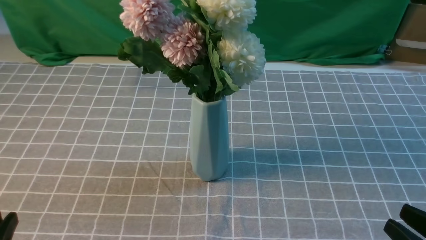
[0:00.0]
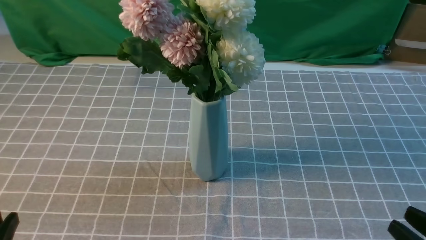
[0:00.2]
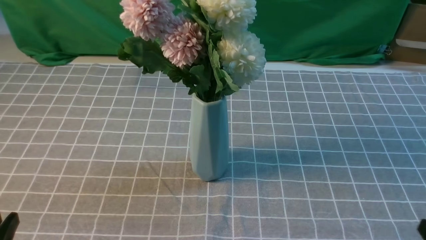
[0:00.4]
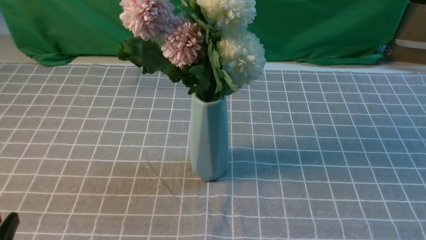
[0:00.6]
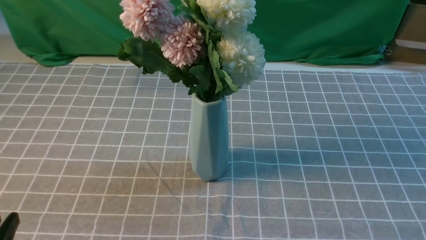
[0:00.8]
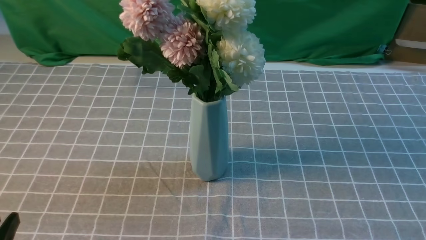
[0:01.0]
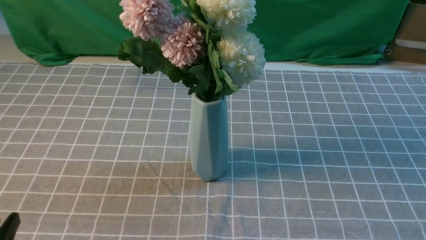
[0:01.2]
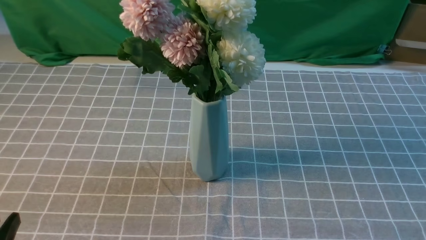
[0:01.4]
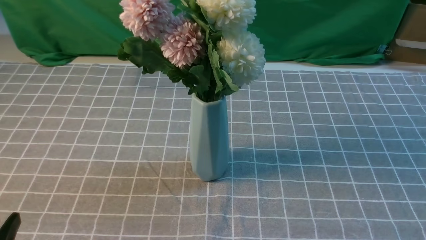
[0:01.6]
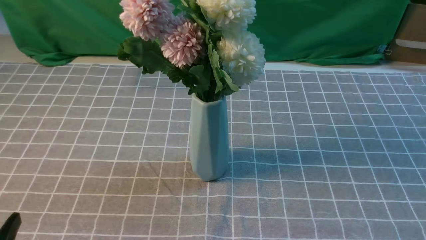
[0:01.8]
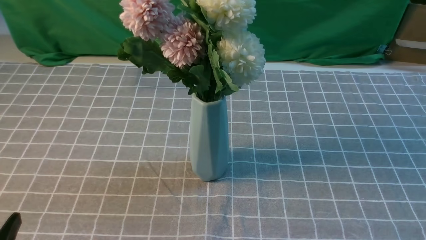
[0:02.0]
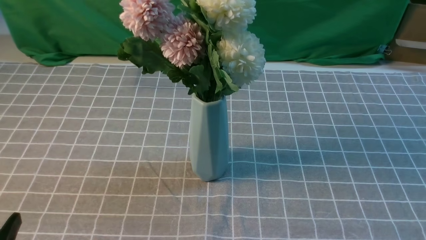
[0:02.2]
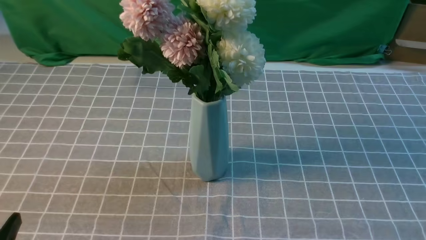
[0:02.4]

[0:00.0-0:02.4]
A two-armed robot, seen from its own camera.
Task of the whole recording: insert the flowers into the vase on the table with the grey tablecloth.
0:00.0 to 0:01.2: The right gripper ends up roughly 5 cm from where it was.
0:01.2 to 0:02.4: Both grippers stay about where they are.
